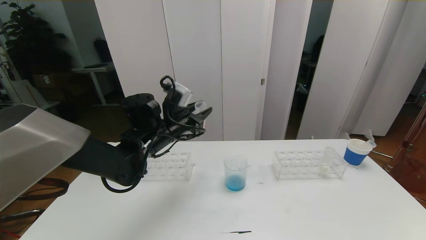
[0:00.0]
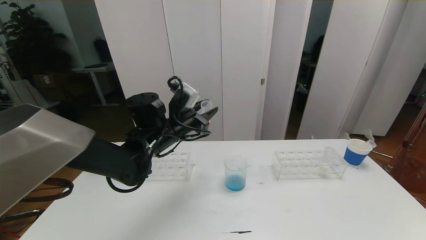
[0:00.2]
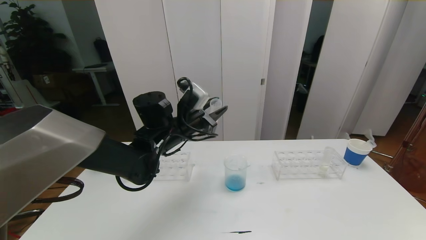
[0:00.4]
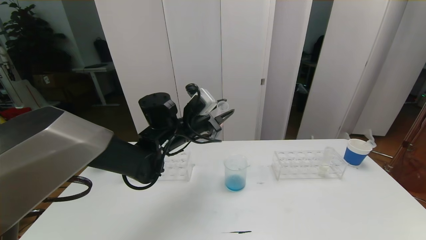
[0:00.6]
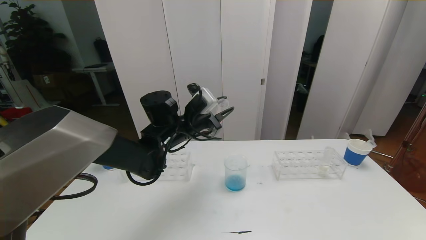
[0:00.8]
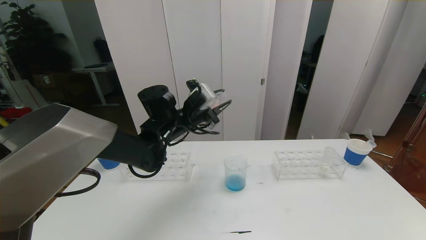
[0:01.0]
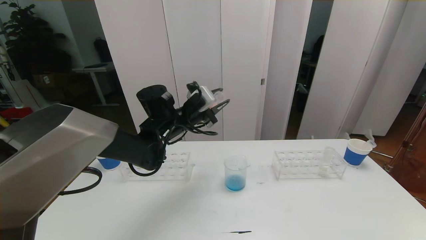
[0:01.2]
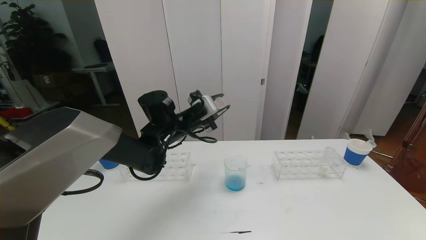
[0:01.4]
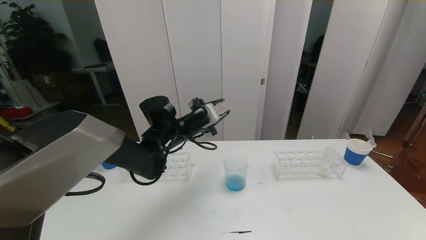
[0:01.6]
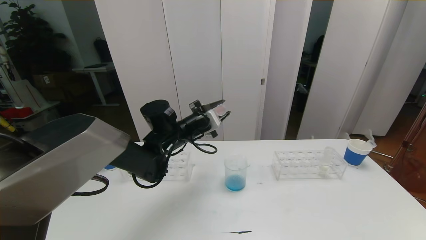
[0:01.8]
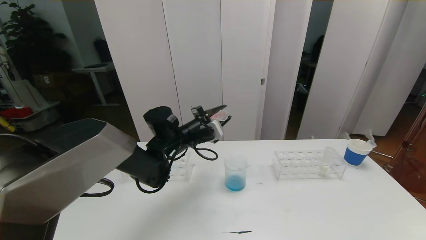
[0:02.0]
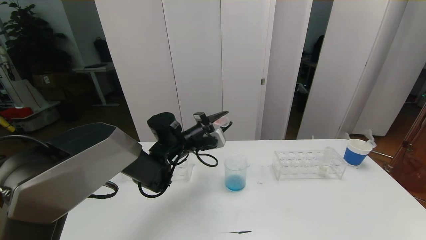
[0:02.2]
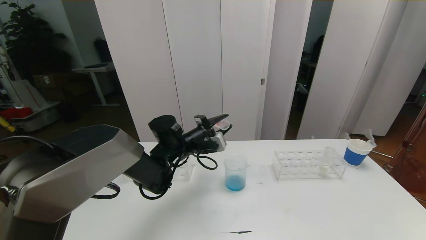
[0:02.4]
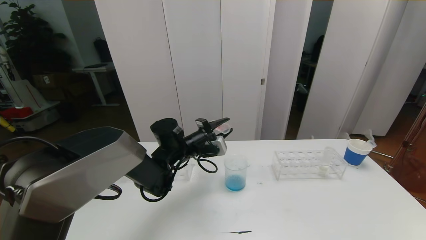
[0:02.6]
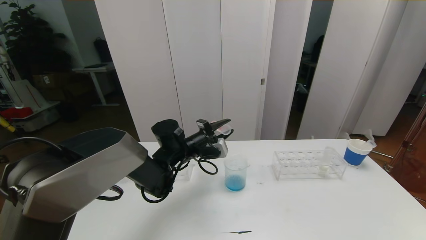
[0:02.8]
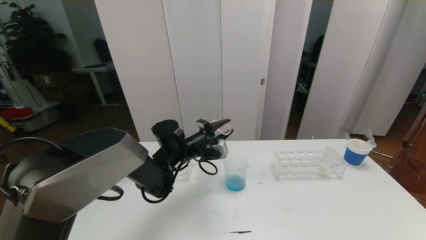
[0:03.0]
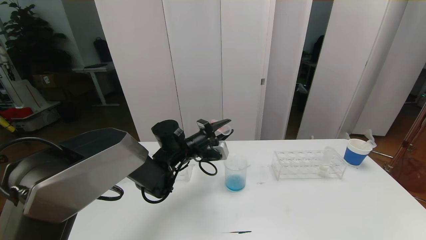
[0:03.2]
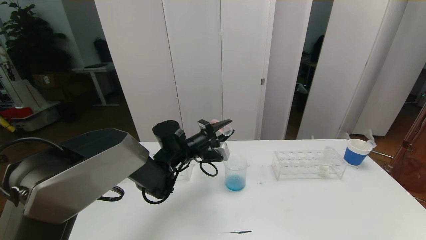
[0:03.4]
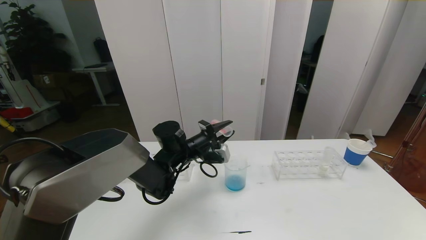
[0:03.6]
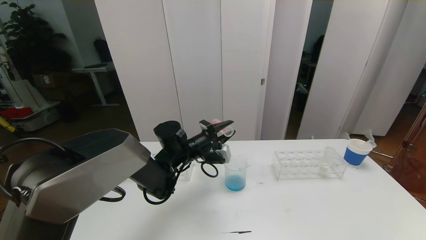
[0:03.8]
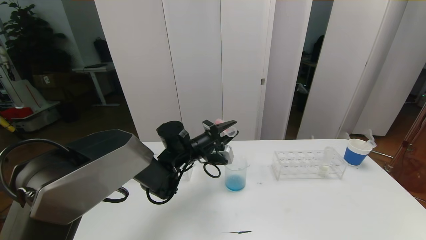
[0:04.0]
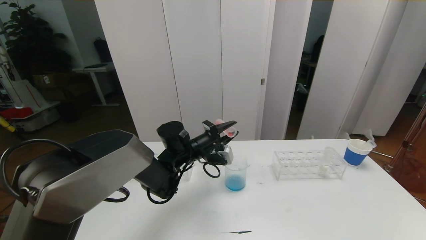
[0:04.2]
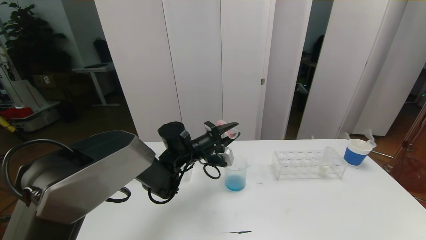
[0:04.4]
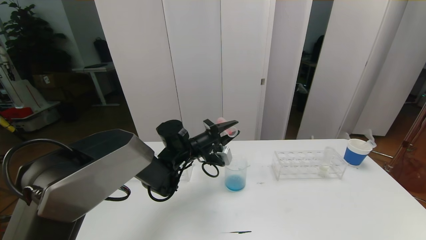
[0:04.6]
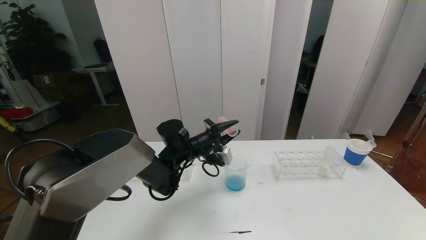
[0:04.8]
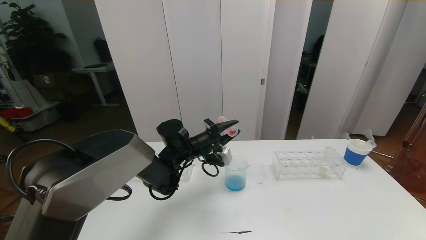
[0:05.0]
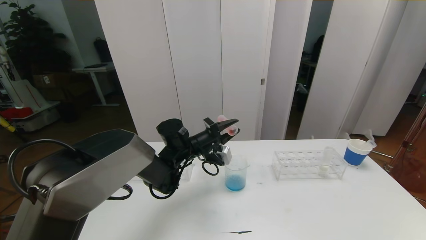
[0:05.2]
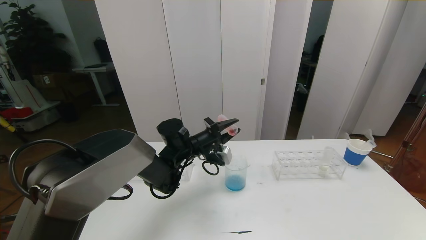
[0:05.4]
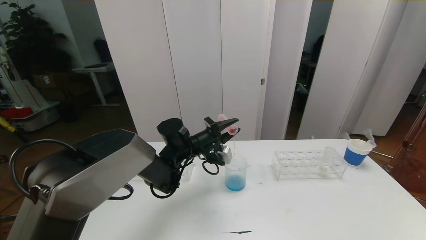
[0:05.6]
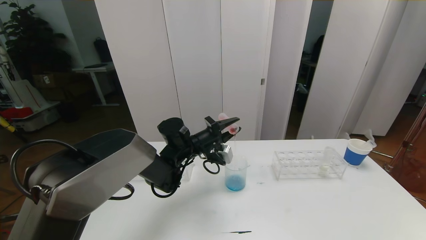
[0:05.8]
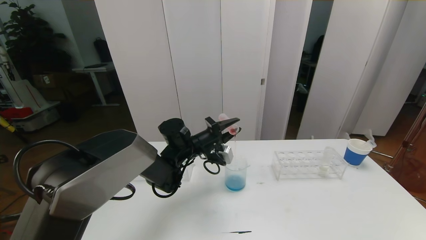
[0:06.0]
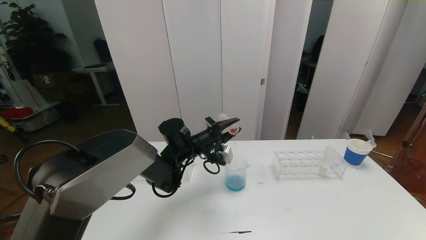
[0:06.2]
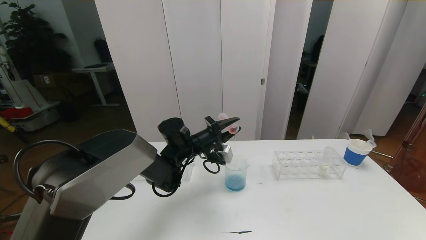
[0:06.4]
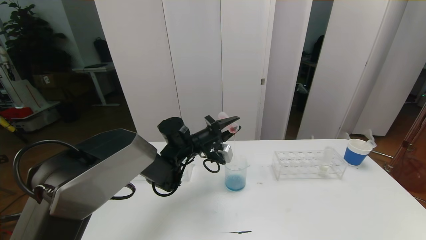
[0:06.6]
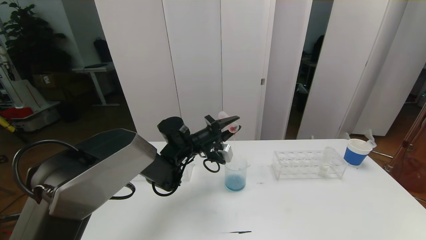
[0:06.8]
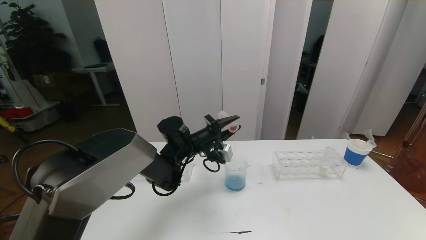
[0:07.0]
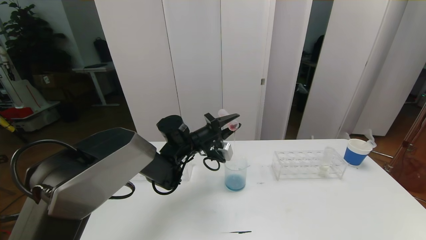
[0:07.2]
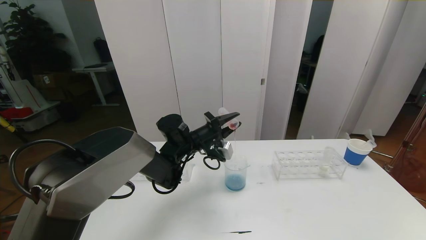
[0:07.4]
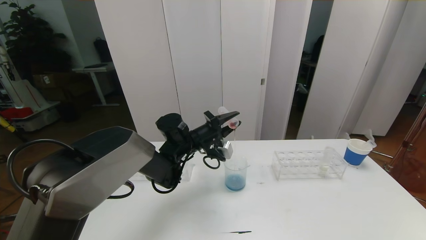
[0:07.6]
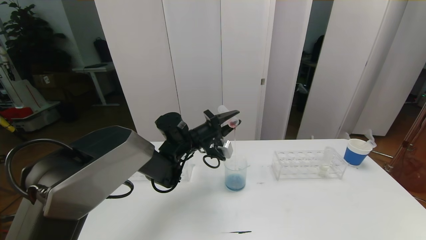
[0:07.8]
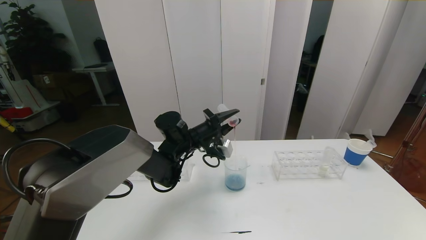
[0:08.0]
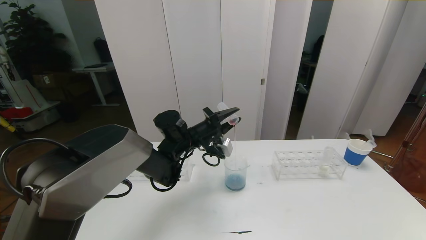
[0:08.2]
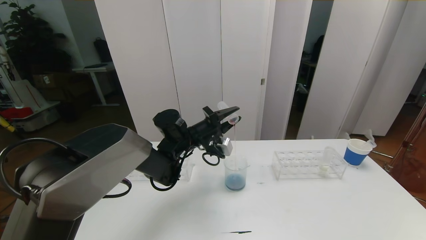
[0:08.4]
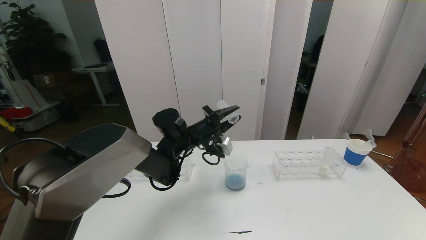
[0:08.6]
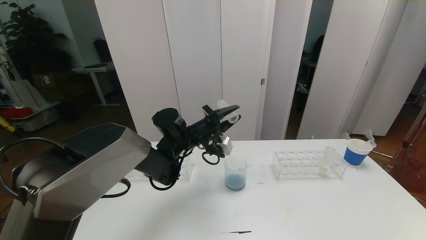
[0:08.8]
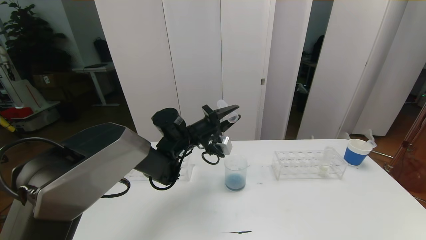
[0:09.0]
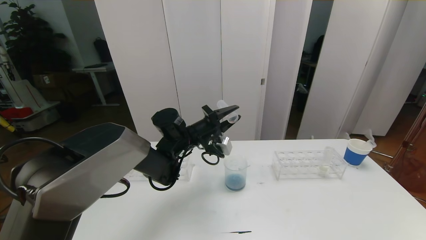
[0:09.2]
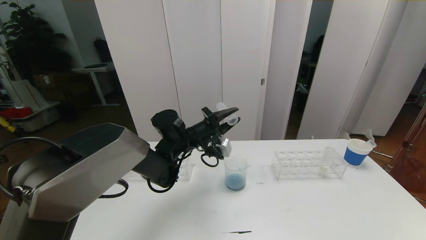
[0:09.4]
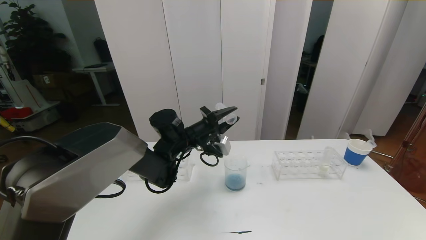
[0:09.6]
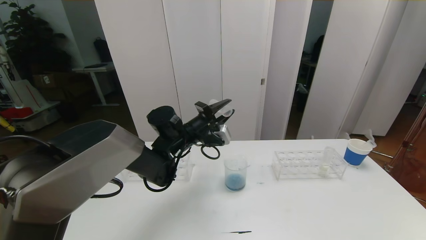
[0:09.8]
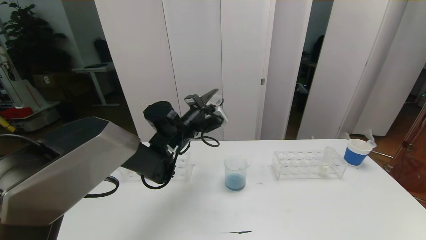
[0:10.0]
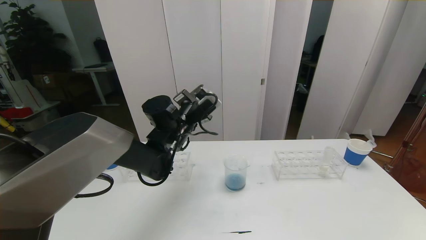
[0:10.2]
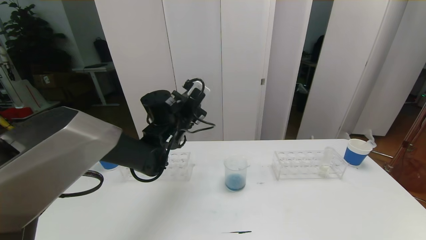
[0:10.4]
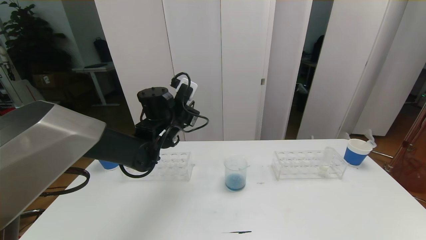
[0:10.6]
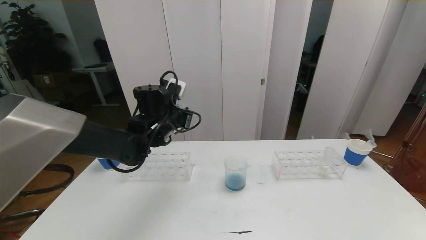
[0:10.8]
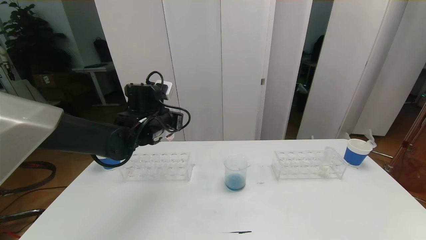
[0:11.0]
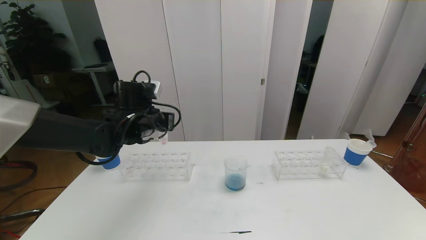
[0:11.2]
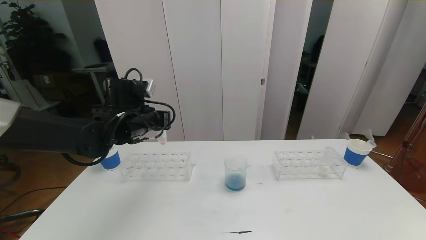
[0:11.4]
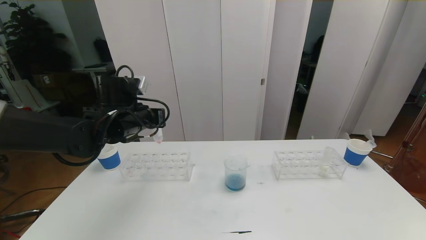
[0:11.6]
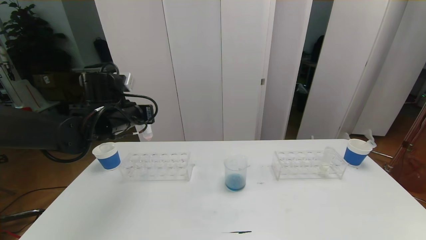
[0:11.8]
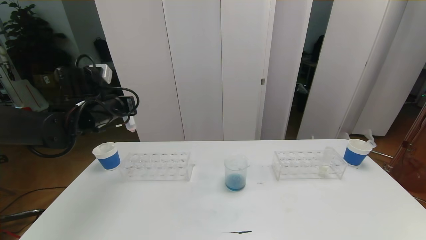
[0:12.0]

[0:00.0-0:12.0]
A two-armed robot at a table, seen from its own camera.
Task of the whole recording: pick up the test tube with red pigment the test tube with blue pigment and the test tube with white pigment by grippers and pour them into the beaker.
0:01.6 to 0:03.0: The left gripper shifts roughly 5 cm downward.
0:03.0 to 0:09.0: The grippers stay close to where they were, moving slightly.
0:09.0 to 0:10.4: The left gripper ends up about 5 cm from where it was.
0:10.4 to 0:12.0: The left gripper goes roughly 15 cm to the left.

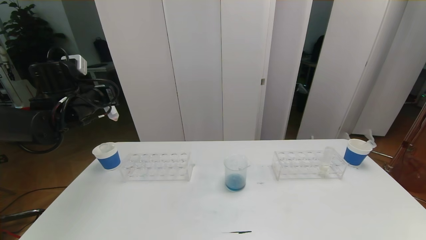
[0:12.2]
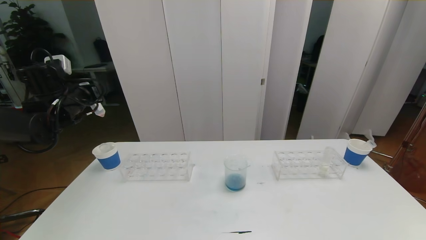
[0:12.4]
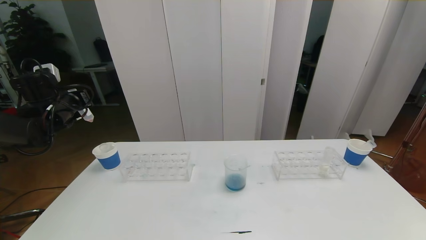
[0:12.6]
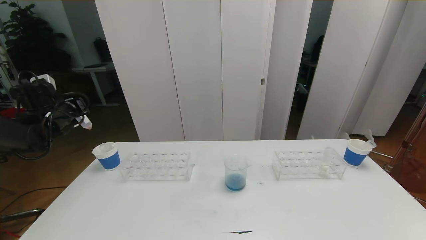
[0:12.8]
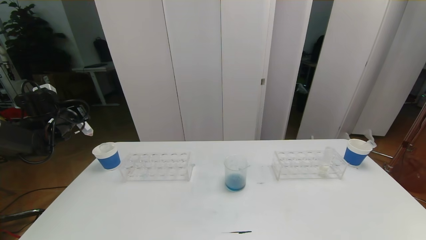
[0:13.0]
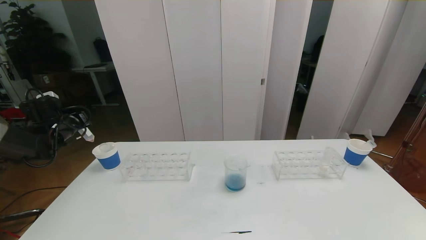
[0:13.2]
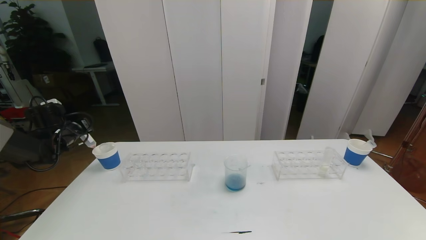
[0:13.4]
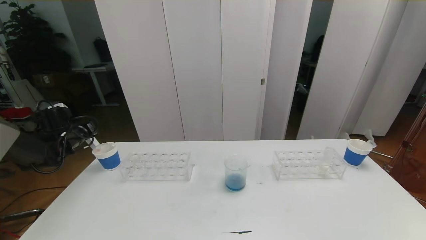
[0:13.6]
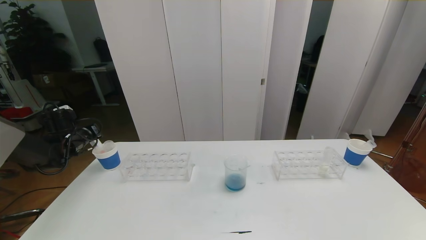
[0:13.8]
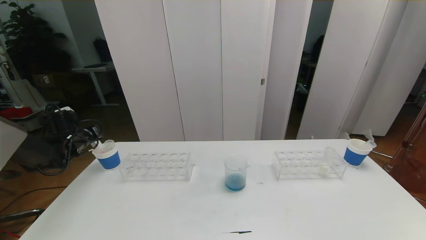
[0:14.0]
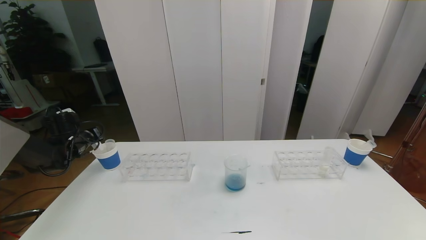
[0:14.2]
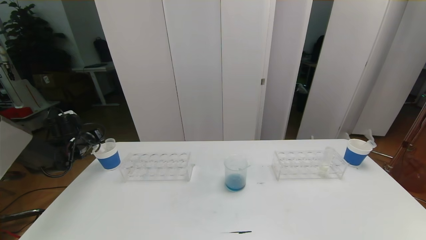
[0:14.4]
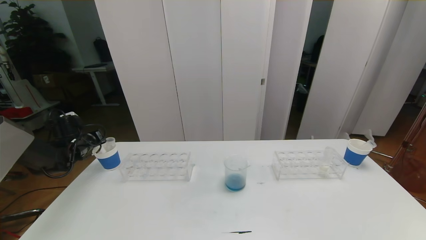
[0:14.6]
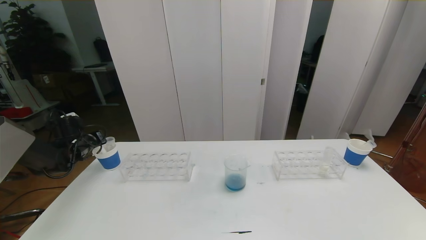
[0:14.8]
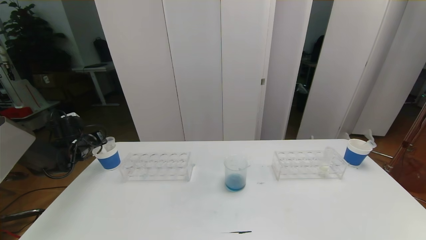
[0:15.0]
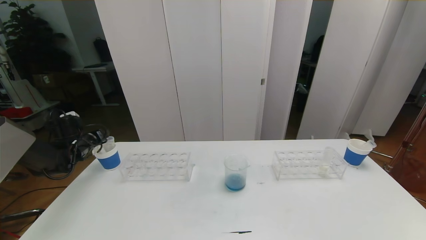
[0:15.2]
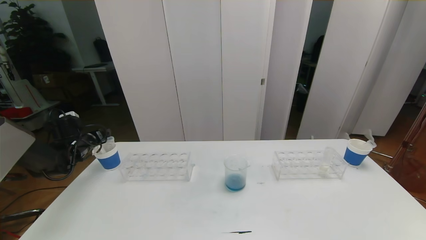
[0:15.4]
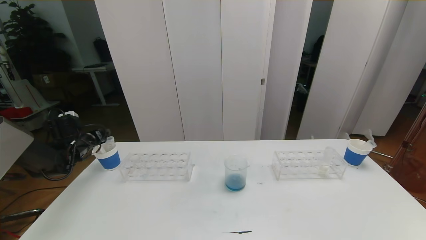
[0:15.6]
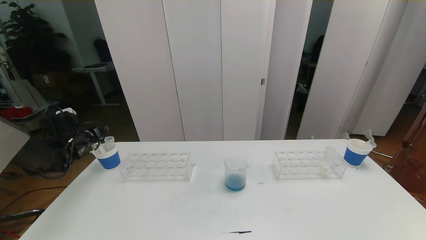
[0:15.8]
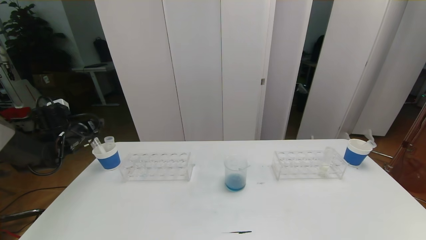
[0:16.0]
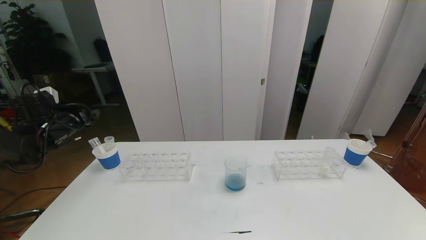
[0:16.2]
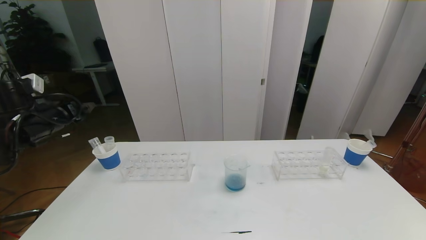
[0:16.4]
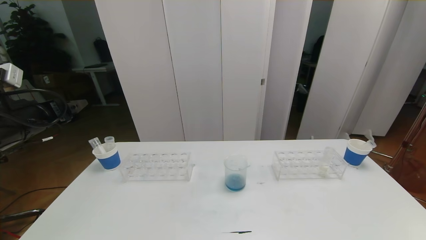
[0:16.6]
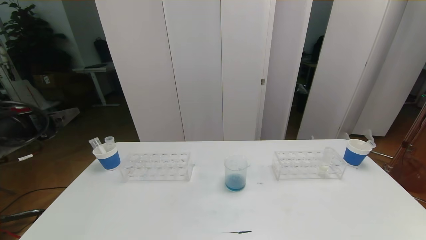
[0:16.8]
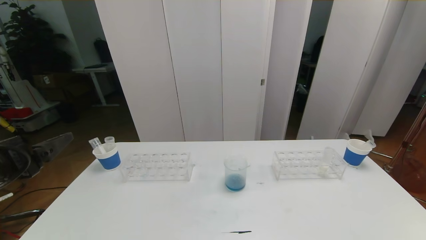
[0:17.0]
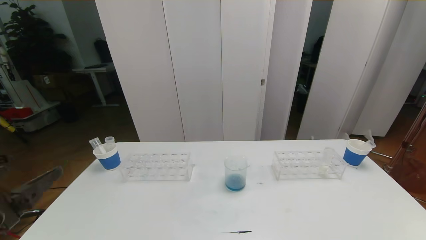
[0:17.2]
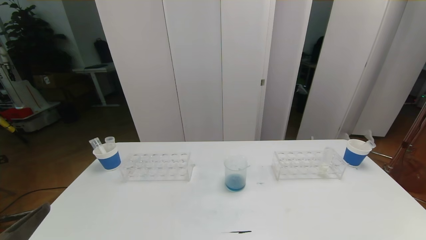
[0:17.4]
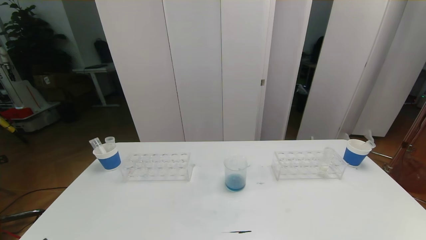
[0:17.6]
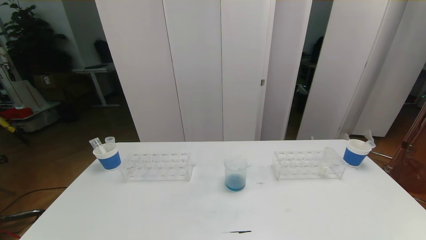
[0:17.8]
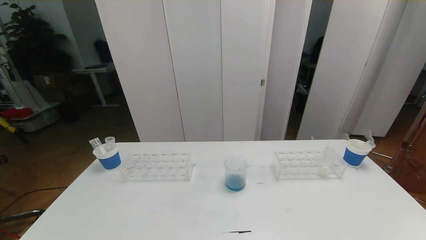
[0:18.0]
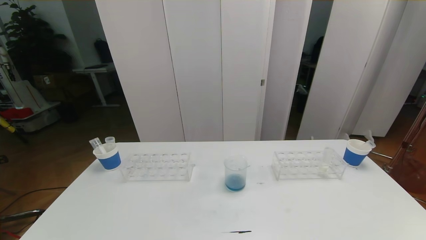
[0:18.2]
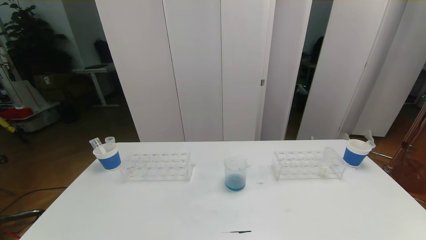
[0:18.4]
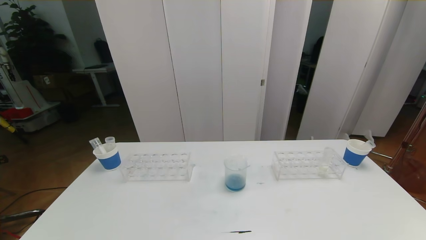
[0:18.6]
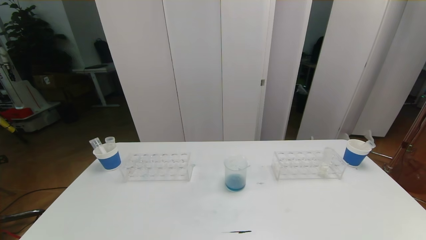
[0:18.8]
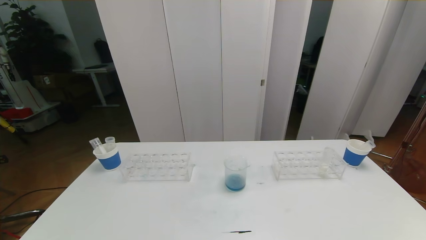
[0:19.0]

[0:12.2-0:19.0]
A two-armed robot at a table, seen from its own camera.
Task of the whole recording: pick up the test tube with red pigment the test tube with blue pigment and the test tube with white pigment by grippers and pour them into the beaker.
0:12.2 to 0:13.6: The left gripper goes about 15 cm downward and to the left.
0:13.6 to 0:15.0: The grippers move only a little.
0:15.0 to 0:16.2: The left gripper heads upward and backward, covering about 10 cm, and opens up.
0:16.2 to 0:17.6: The left gripper travels backward by about 35 cm.
